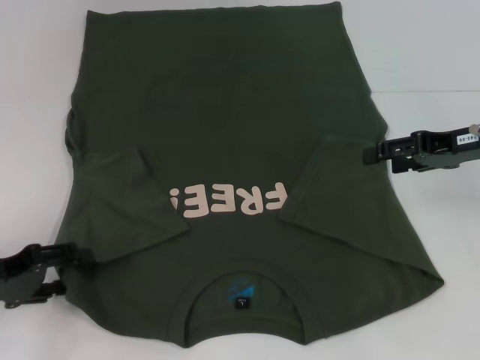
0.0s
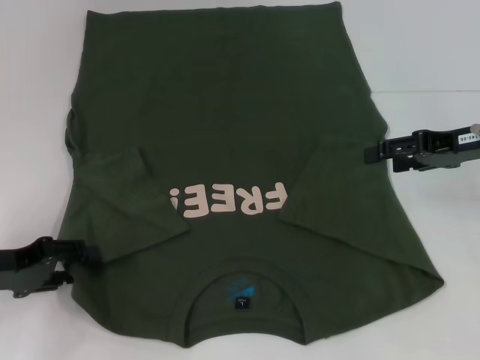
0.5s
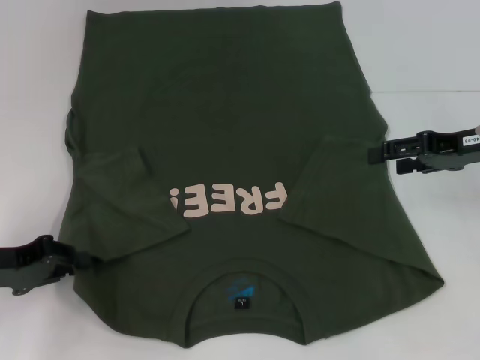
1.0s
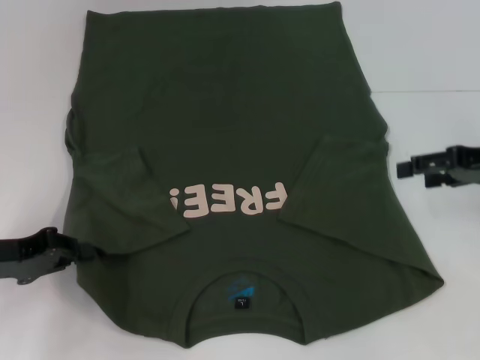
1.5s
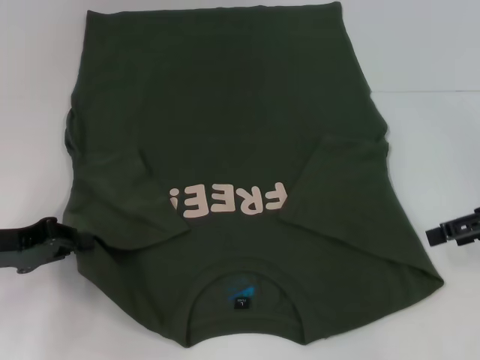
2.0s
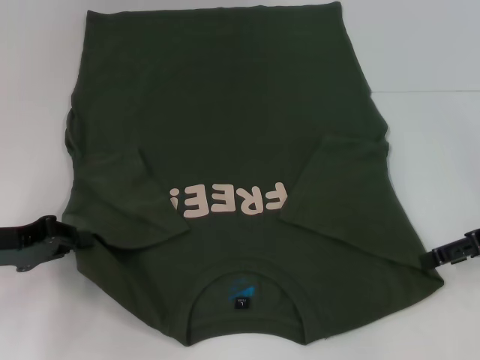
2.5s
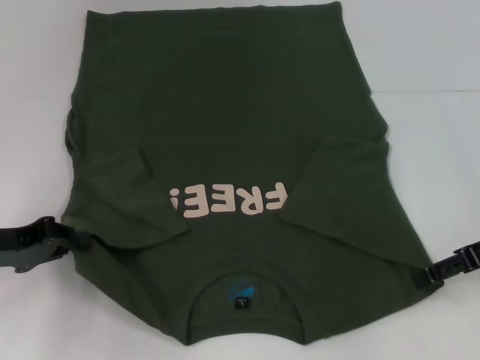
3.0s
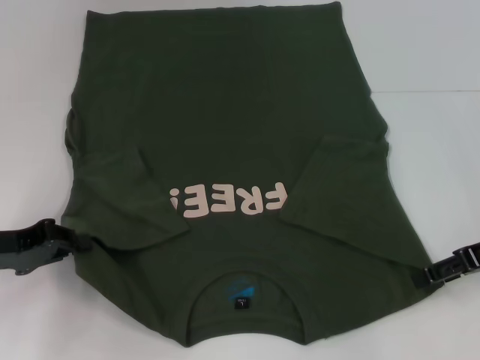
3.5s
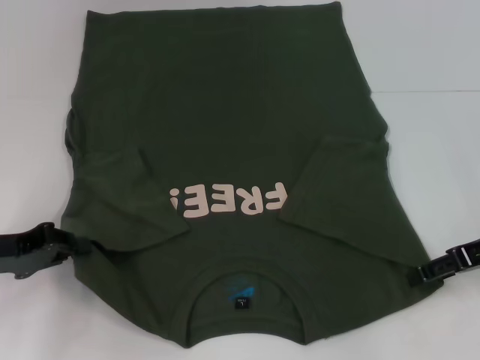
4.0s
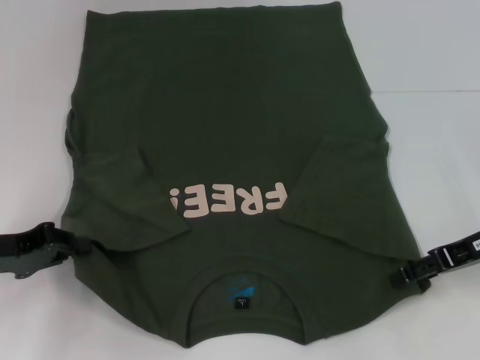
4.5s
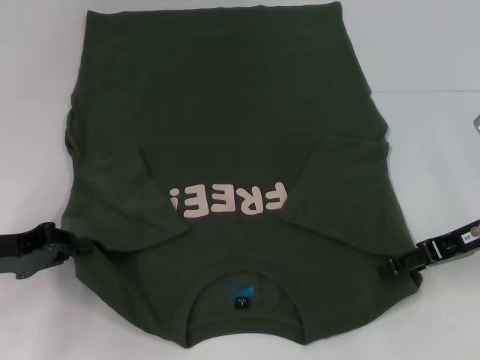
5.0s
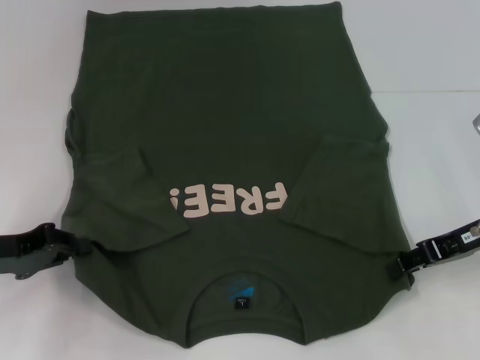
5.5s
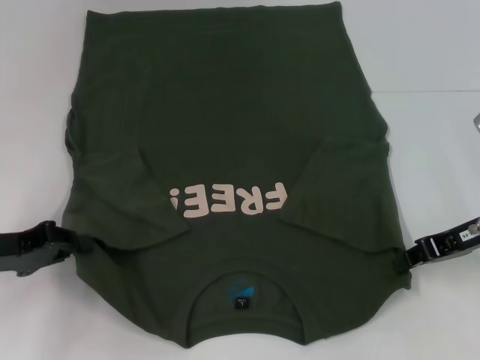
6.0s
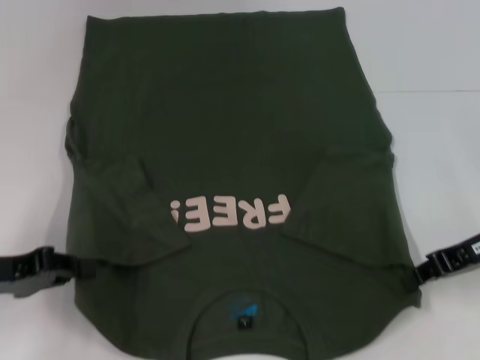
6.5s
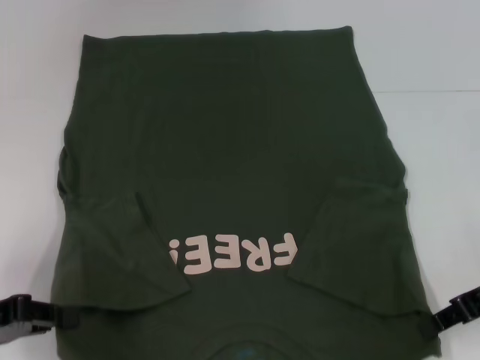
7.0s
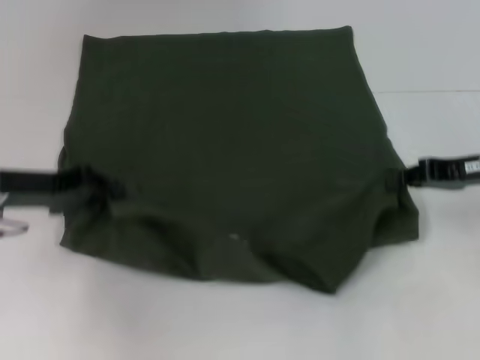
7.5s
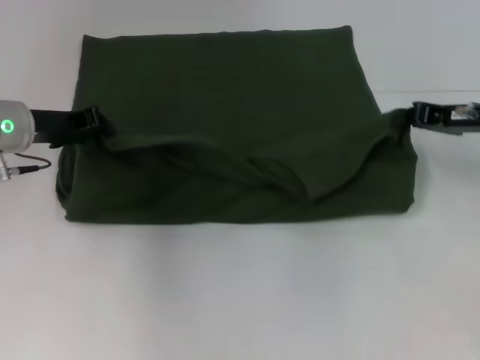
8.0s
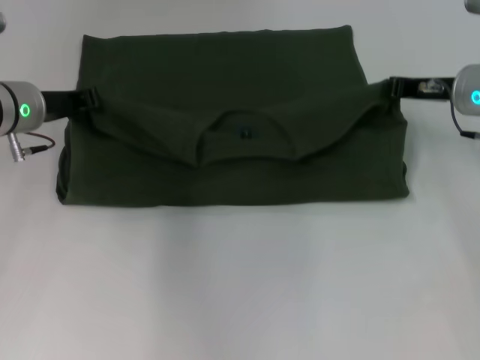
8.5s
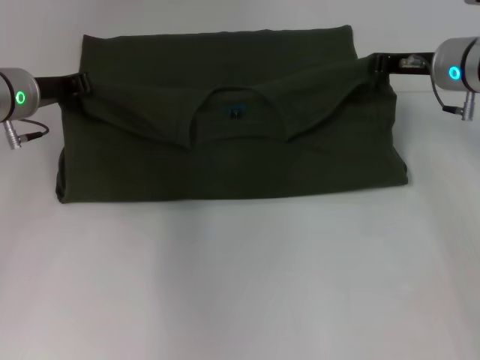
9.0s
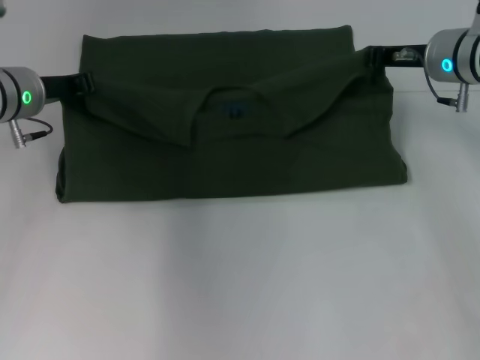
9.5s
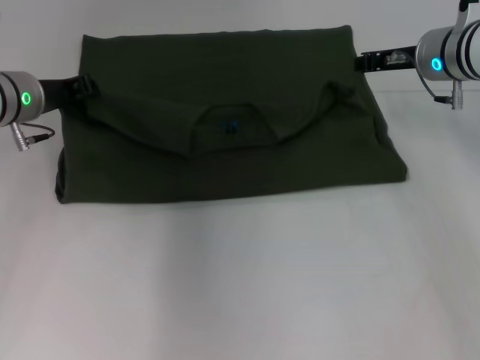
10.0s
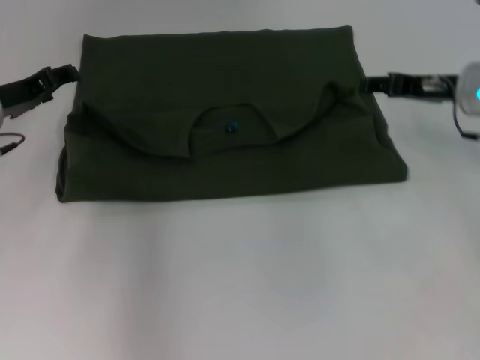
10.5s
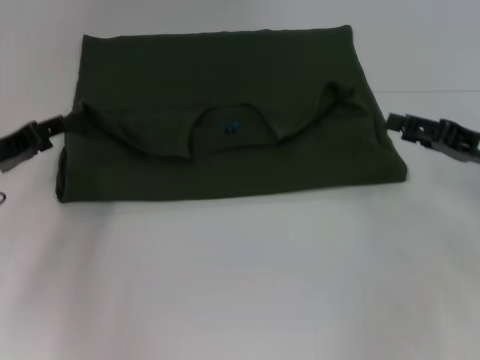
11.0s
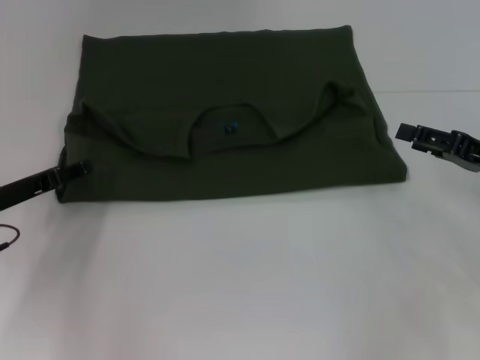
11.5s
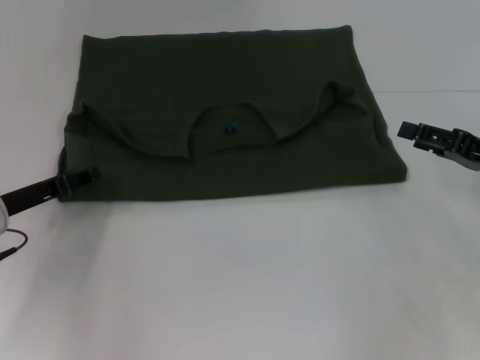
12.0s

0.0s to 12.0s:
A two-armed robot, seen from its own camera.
Step, 0.0s to 4.0s: Grab the bottom left corner with your left hand.
Step, 4.5s to 5.5s: Grab the bottom right corner with your right hand.
Step, 6.0s to 10.5s: Fold the clothes with your left hand.
Step, 6.0s to 10.5s: Fold the clothes with your right hand.
0.0s to 2.0s: The right gripper shifts by about 5 cm. The left gripper closes up.
2.0s to 4.0s: There are only small adjustments of the grippers.
4.0s to 6.0s: The right gripper closes its fingers.
6.0s to 8.0s: The left gripper goes about 15 cm forward and to the right. The right gripper moves forward, approximately 5 cm.
8.0s to 10.0s: The right gripper moves to the left and forward, some 10 cm.
10.0s to 12.0s: The right gripper travels backward, to the right and downward by some 20 cm, and opens its fingers, while the left gripper goes roughly 15 cm backward and downward, and opens its fingers.

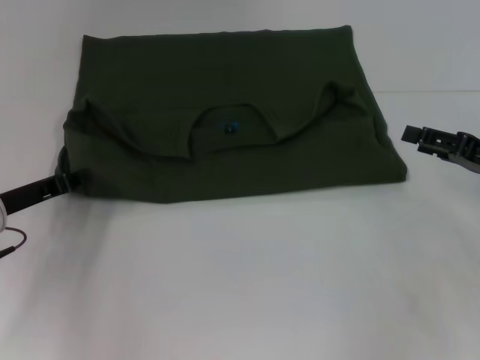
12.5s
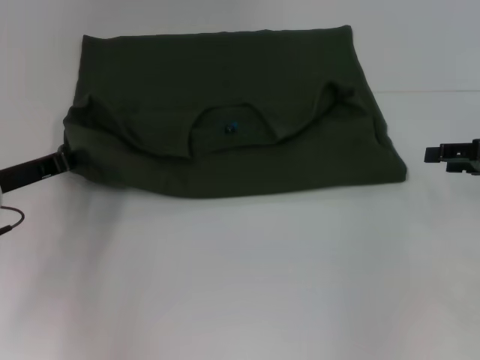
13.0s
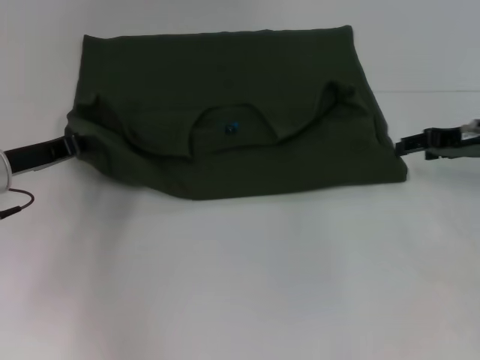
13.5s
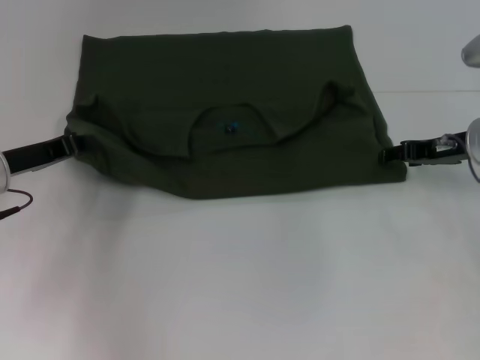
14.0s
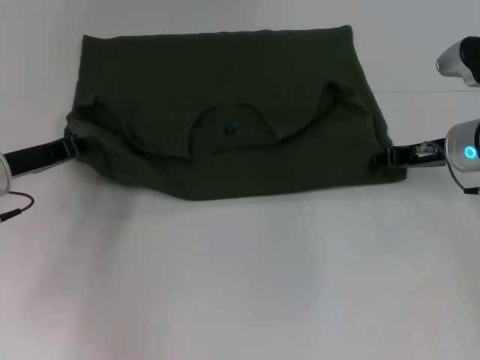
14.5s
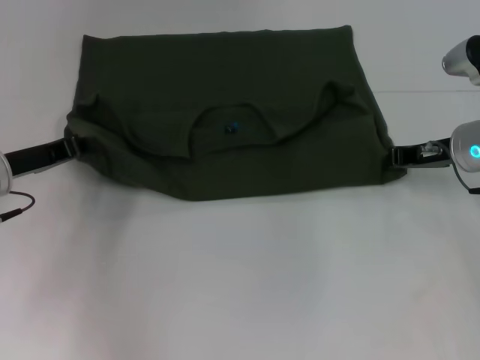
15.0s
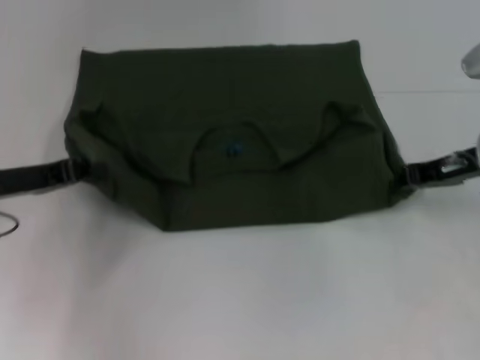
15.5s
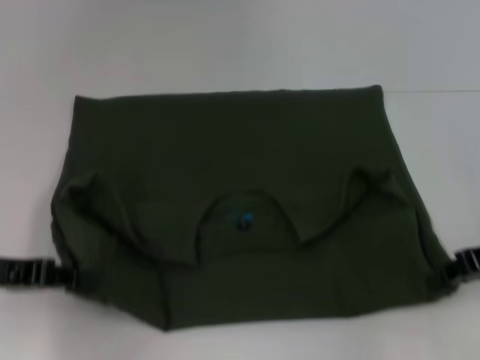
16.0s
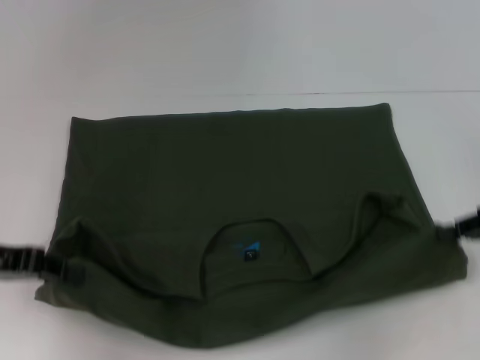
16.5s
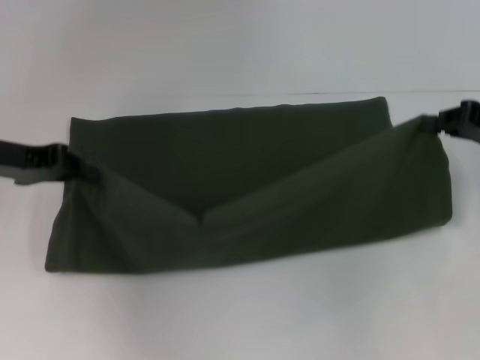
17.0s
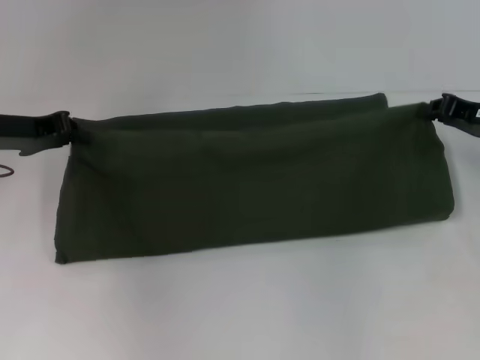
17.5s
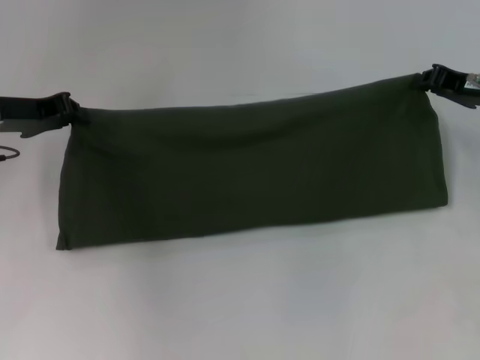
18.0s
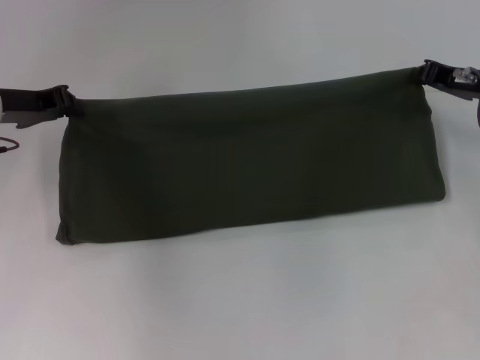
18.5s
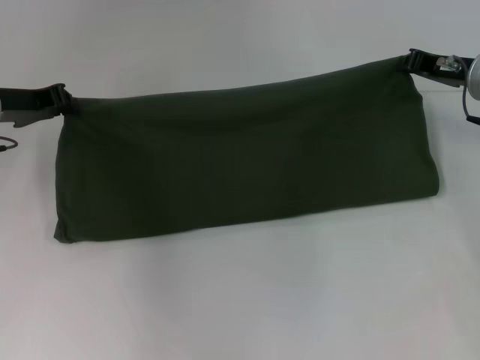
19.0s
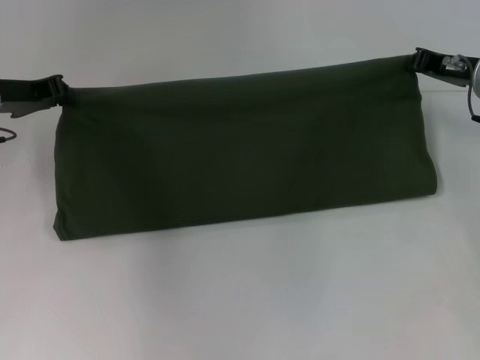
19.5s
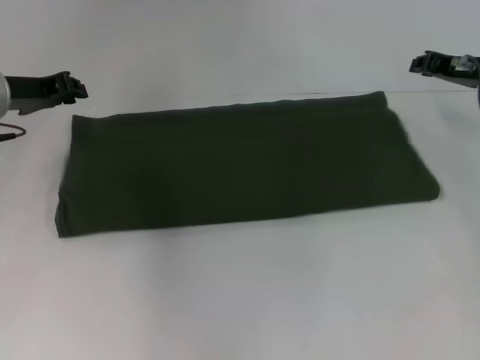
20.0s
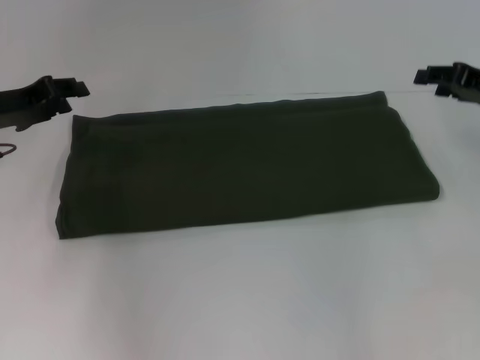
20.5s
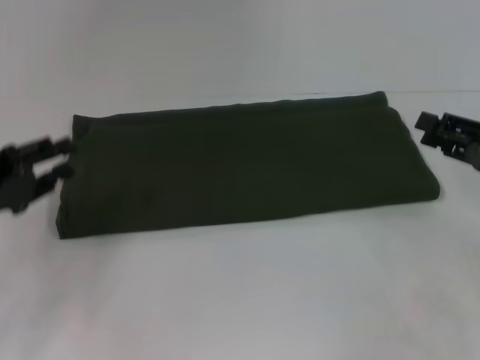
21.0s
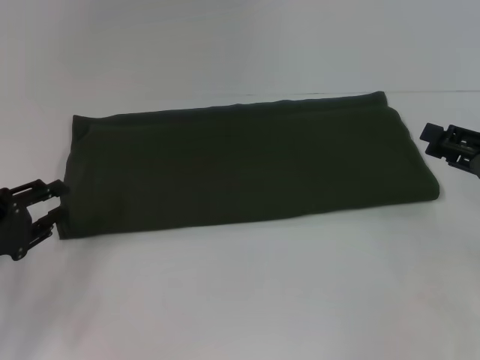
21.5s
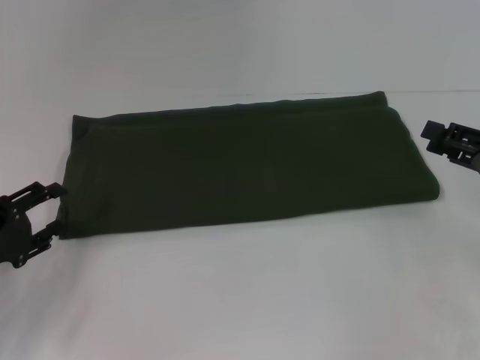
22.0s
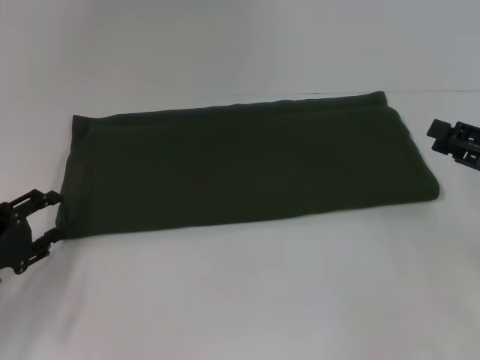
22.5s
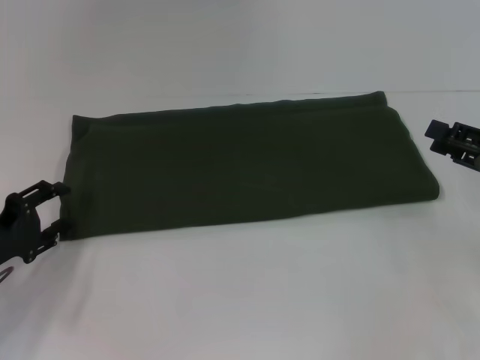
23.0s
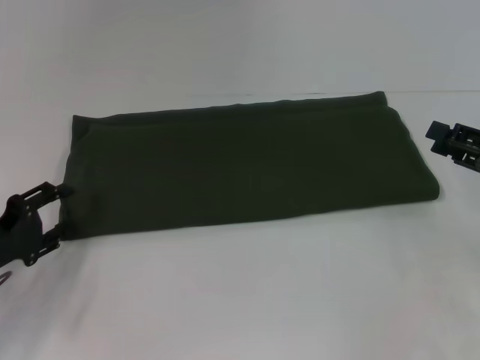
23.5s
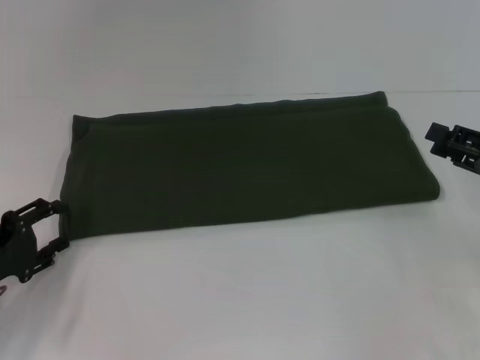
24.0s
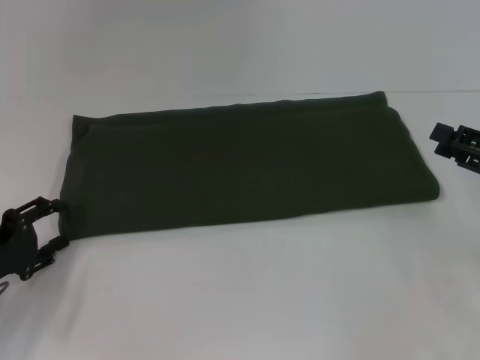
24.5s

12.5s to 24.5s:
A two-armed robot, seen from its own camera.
Step, 12.5s to 16.0s: Pull the clothes with your left hand.
Step, 12.5s to 16.0s: Pull the clothes with your right hand.
Step, 16.5s to 20.0s: Fold the clothes with your right hand.
12.5s to 14.5s: The right gripper shifts roughly 10 cm forward and to the left.
14.5s to 16.5s: The right gripper travels backward and to the right by approximately 15 cm, and closes up, while the left gripper goes roughly 10 cm backward.
16.5s to 18.5s: The right gripper shifts roughly 15 cm forward and to the left, while the left gripper heads forward, covering roughly 15 cm.
18.5s to 20.5s: The right gripper opens up. Meanwhile the left gripper opens.
20.5s to 22.5s: The left gripper shifts roughly 15 cm backward and downward. Meanwhile the right gripper shifts about 10 cm backward.
22.5s to 24.5s: The grippers stay close to where they were, moving slightly.

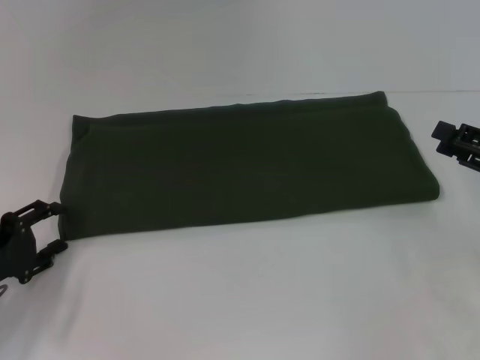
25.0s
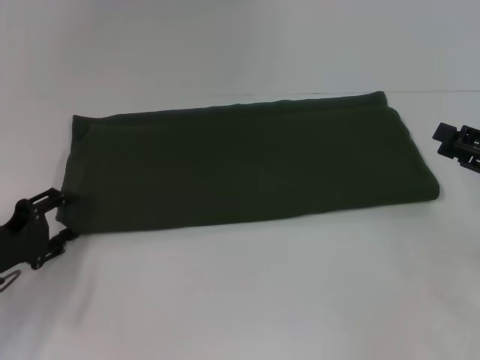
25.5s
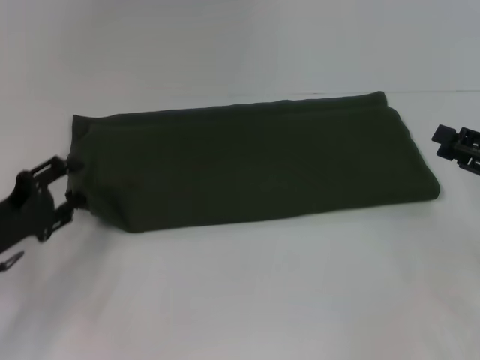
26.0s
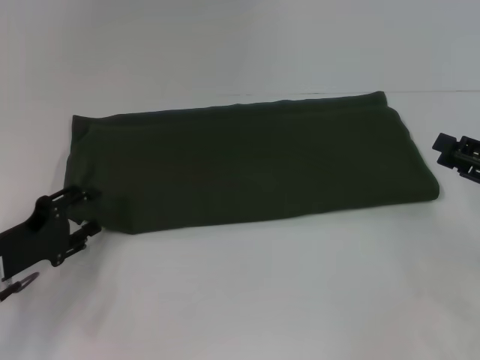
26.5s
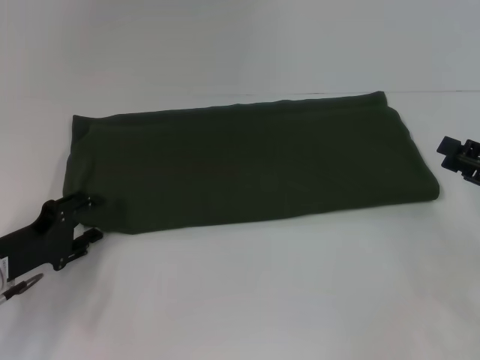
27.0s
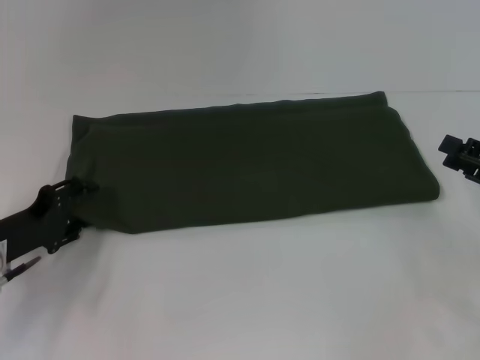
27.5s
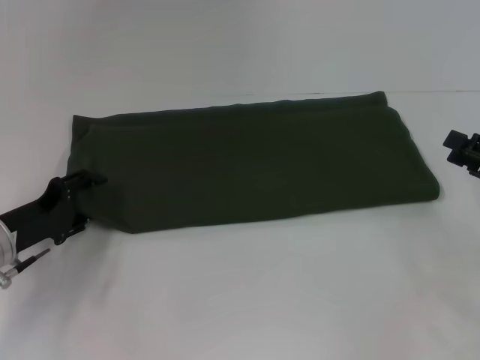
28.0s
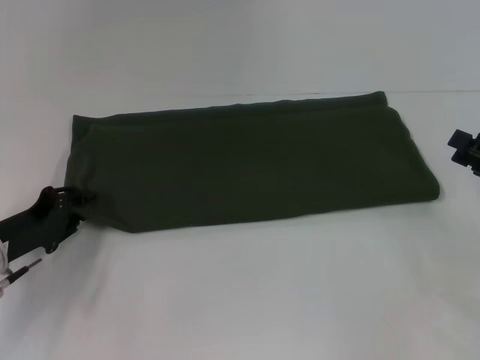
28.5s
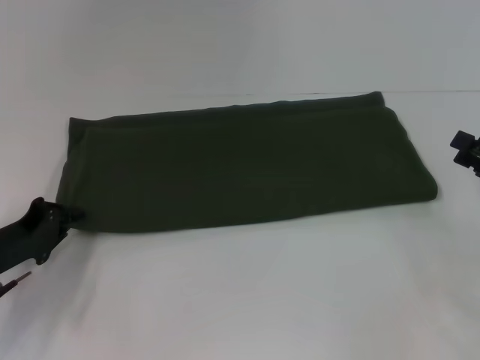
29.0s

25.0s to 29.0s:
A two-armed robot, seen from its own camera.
25.0s to 27.0s: There are only small adjustments of the grippers.
27.0s to 29.0s: The left gripper closes.
